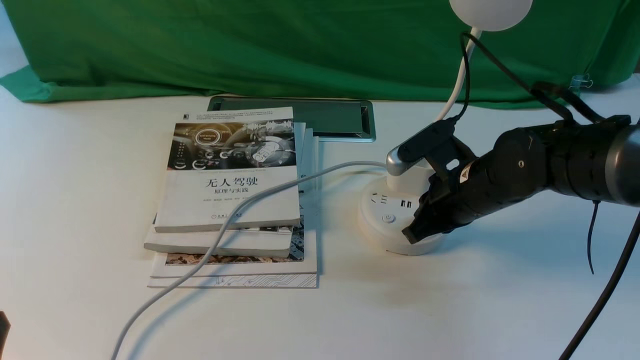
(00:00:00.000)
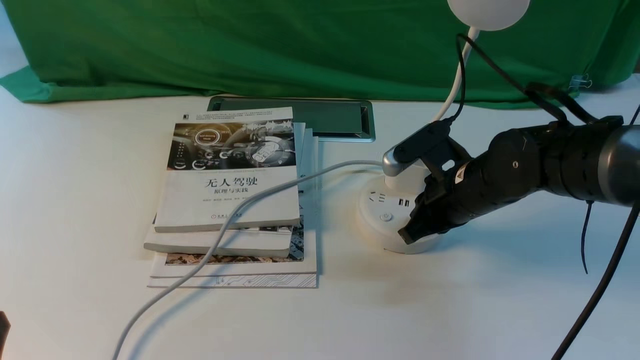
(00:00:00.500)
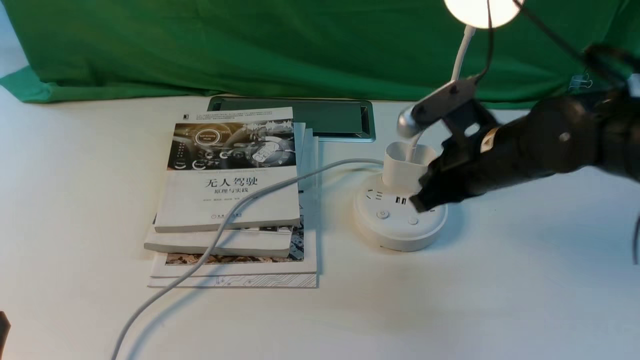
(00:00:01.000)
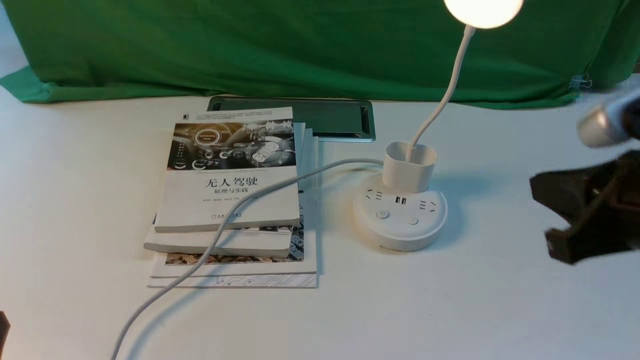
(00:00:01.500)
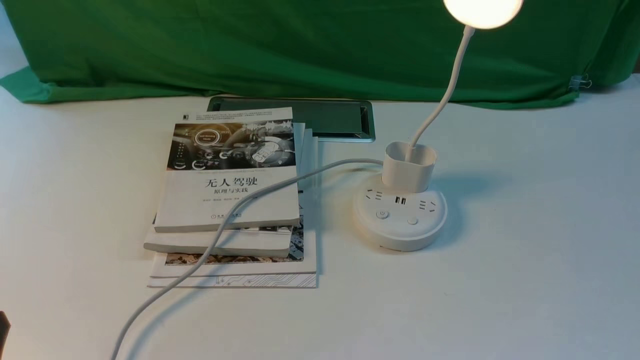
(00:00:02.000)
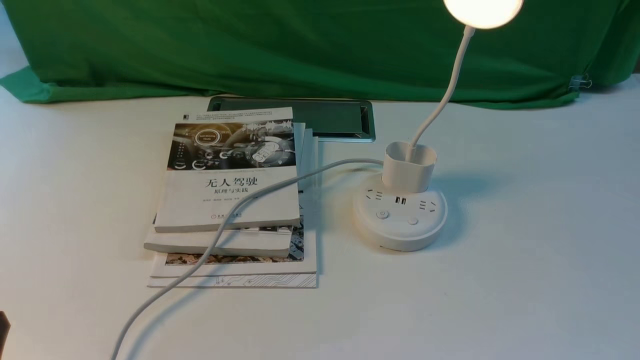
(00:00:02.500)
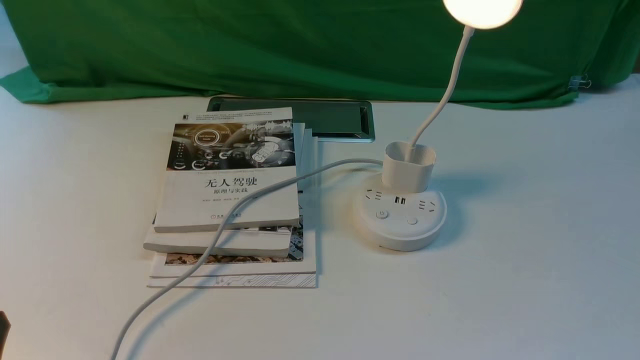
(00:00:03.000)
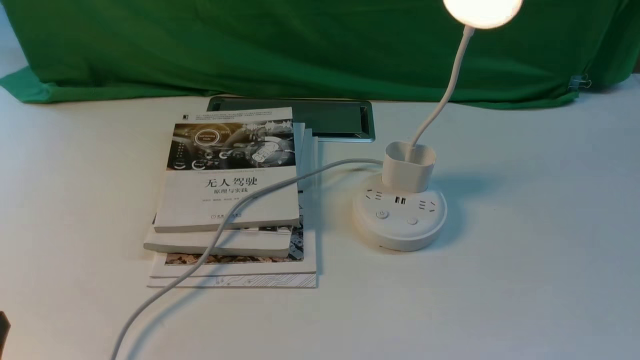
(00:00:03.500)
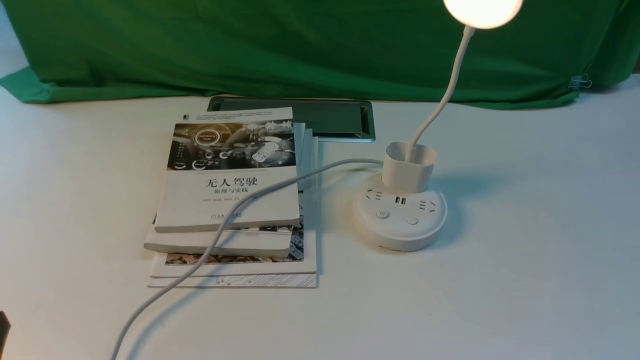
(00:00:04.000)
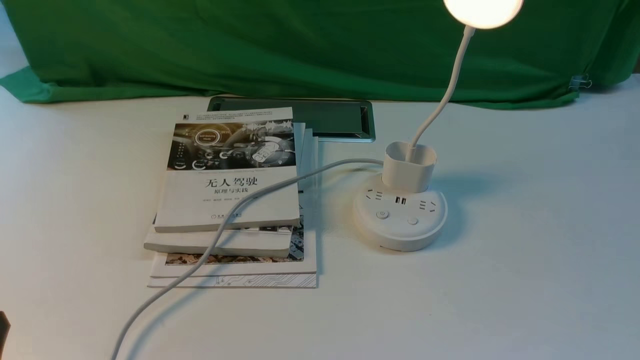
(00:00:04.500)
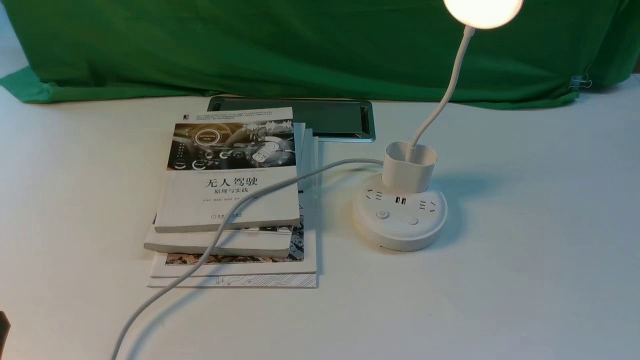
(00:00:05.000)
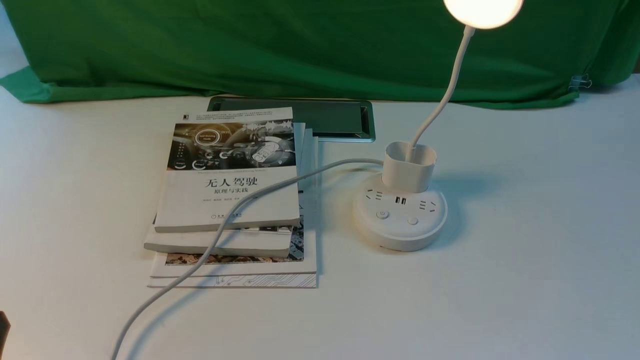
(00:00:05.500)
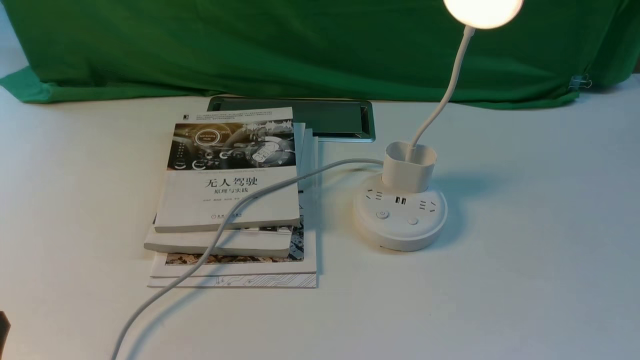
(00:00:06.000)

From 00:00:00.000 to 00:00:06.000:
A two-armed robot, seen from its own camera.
From 00:00:00.000 to 00:00:02.000: The right gripper is displaced backward, upward and to the right by roughly 35 cm.
